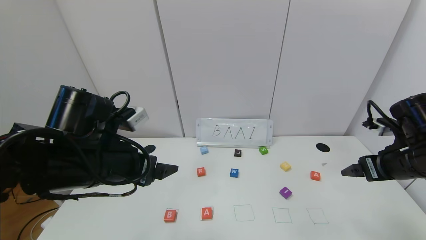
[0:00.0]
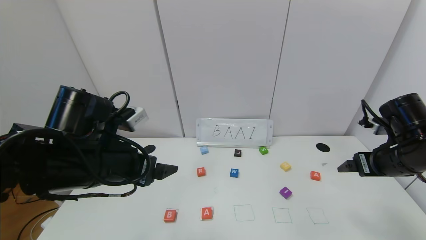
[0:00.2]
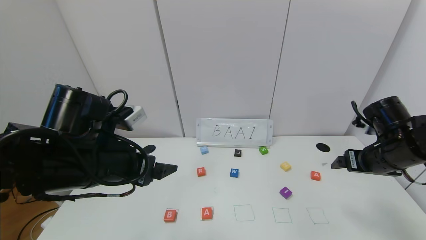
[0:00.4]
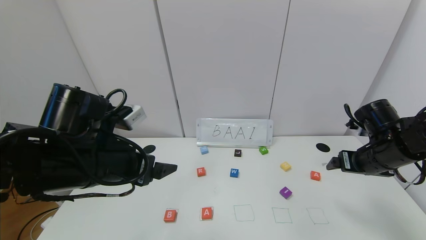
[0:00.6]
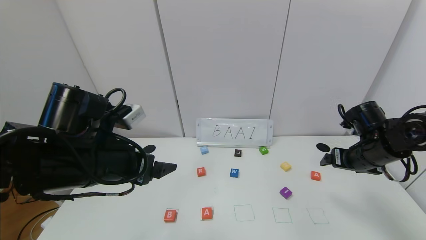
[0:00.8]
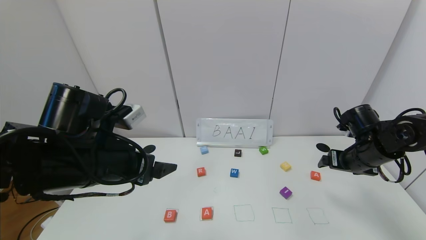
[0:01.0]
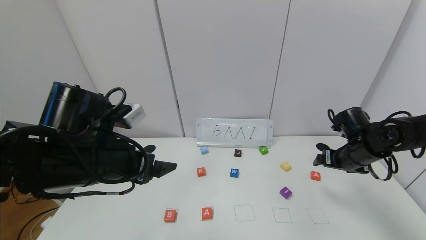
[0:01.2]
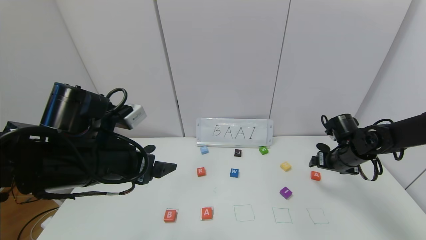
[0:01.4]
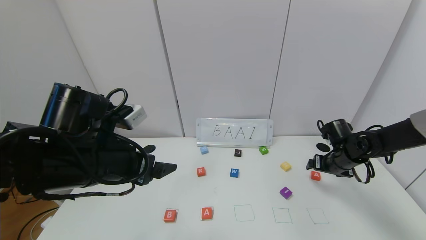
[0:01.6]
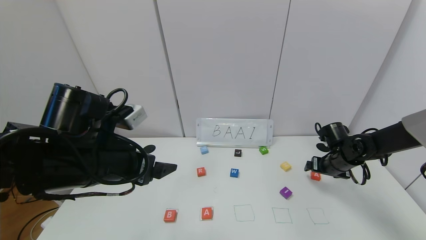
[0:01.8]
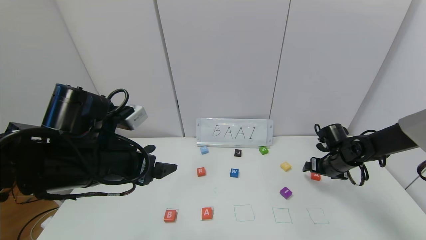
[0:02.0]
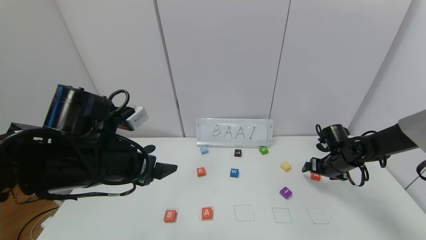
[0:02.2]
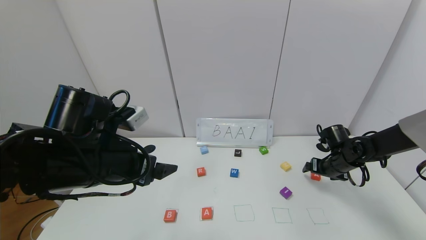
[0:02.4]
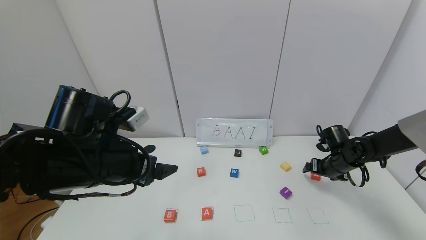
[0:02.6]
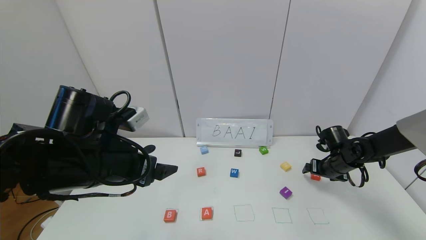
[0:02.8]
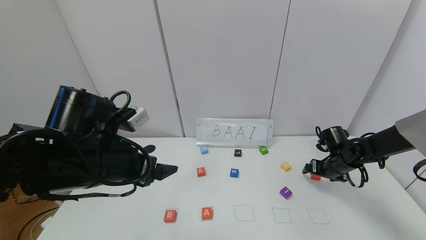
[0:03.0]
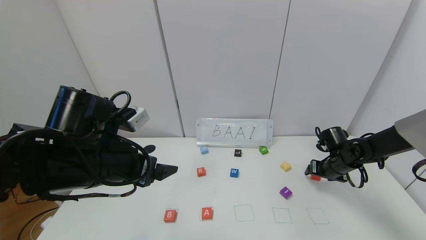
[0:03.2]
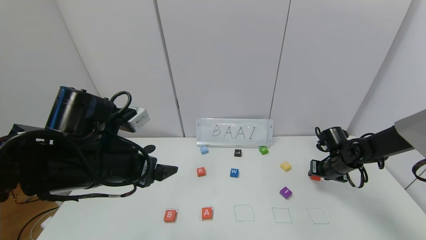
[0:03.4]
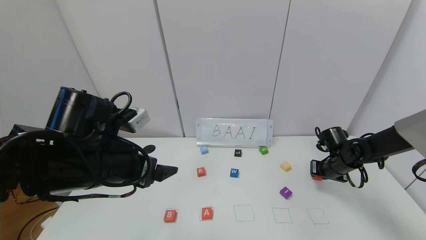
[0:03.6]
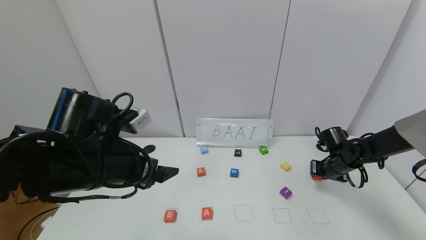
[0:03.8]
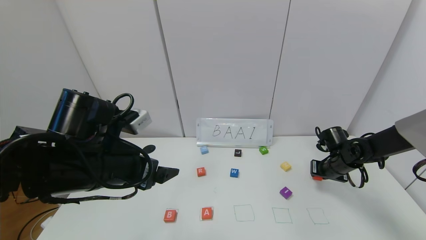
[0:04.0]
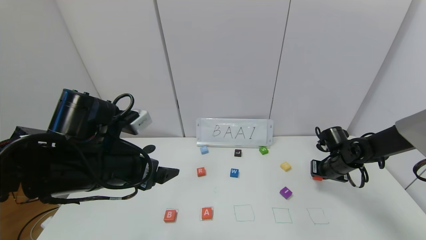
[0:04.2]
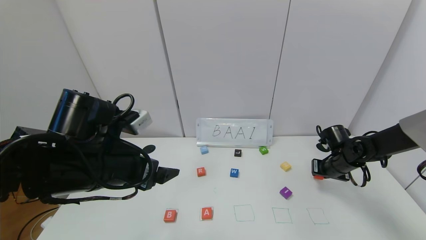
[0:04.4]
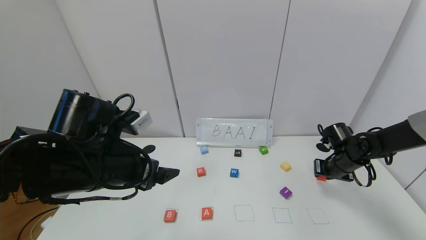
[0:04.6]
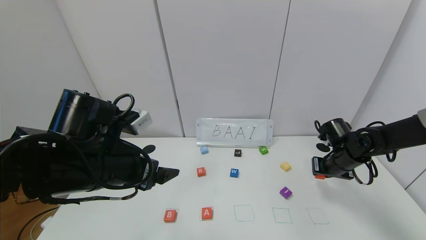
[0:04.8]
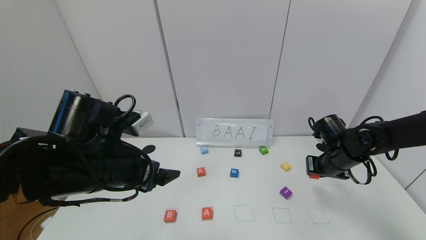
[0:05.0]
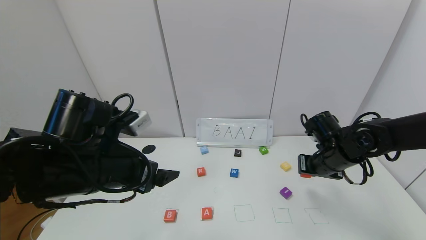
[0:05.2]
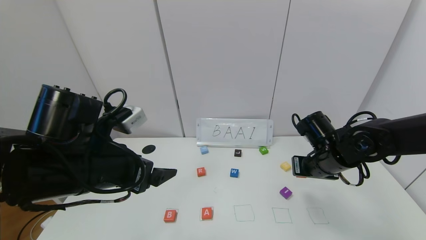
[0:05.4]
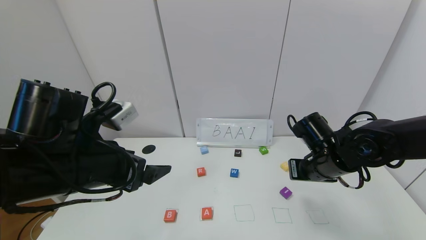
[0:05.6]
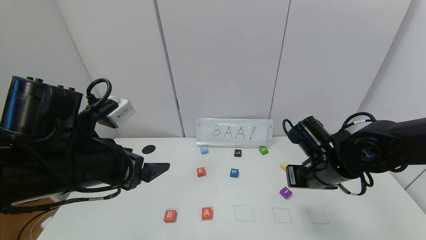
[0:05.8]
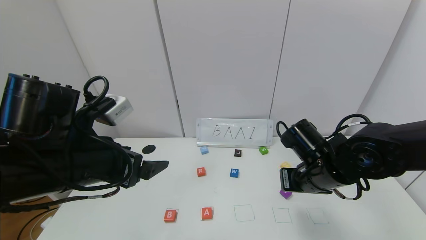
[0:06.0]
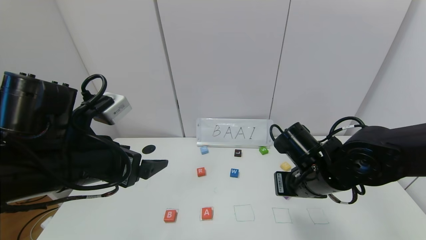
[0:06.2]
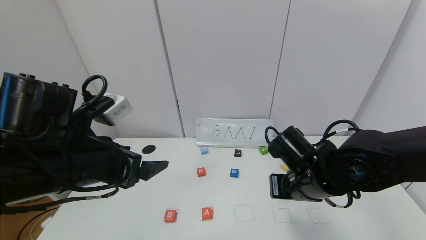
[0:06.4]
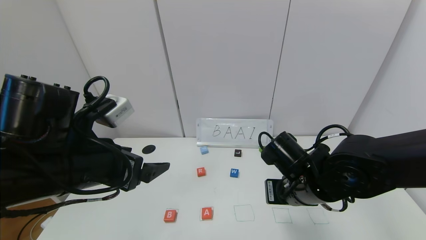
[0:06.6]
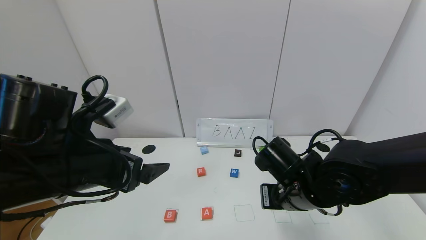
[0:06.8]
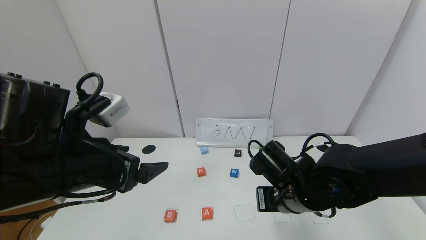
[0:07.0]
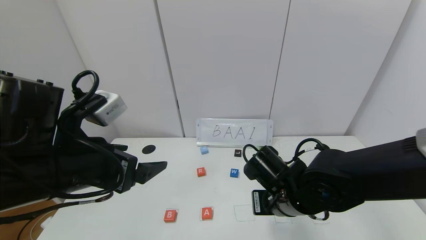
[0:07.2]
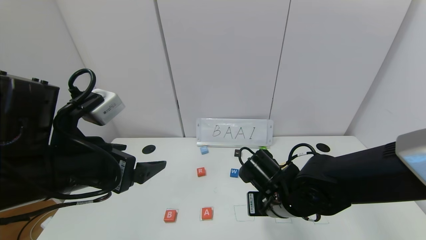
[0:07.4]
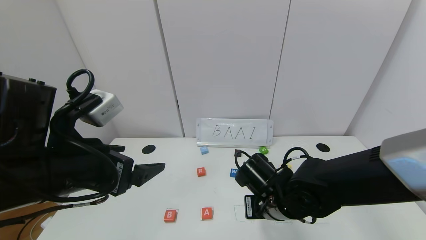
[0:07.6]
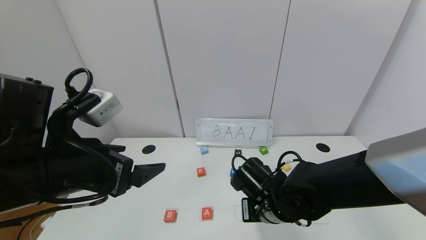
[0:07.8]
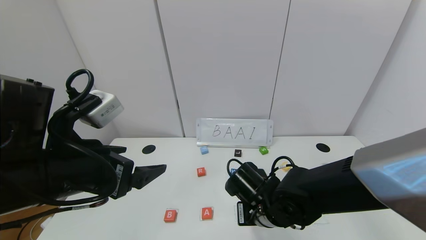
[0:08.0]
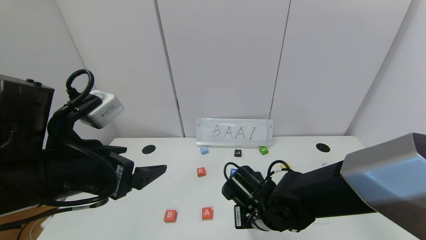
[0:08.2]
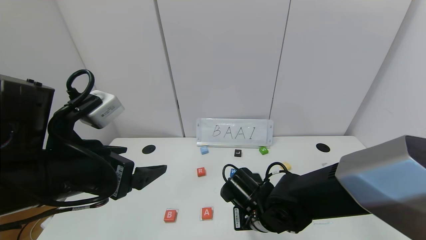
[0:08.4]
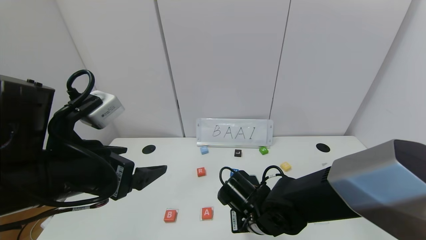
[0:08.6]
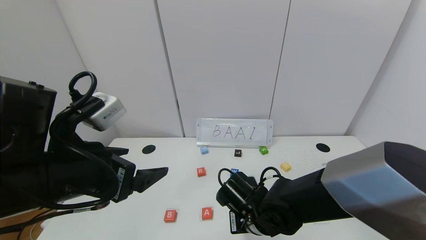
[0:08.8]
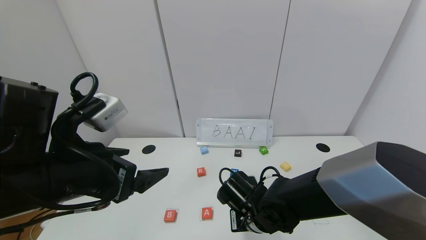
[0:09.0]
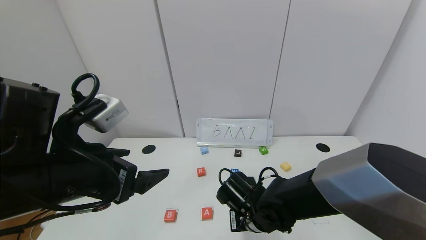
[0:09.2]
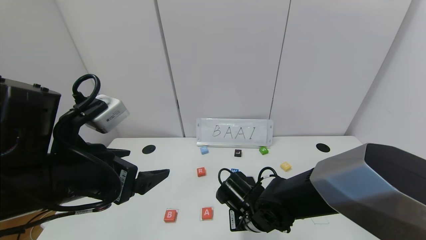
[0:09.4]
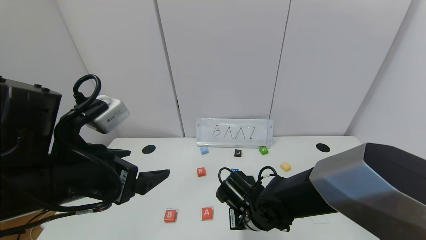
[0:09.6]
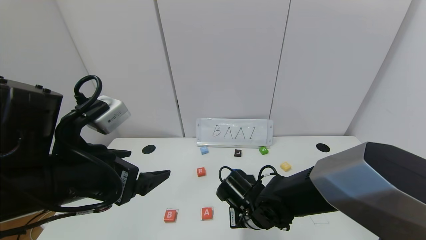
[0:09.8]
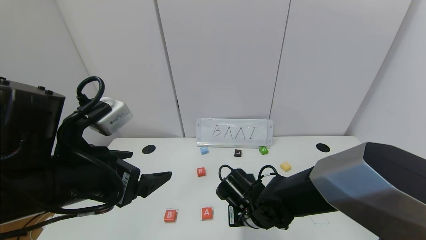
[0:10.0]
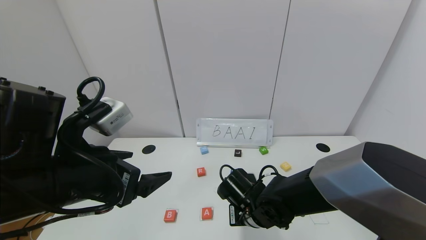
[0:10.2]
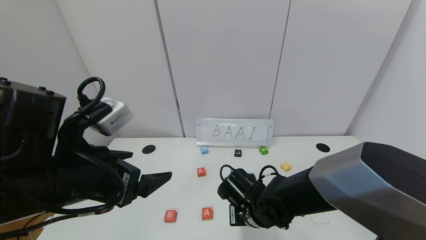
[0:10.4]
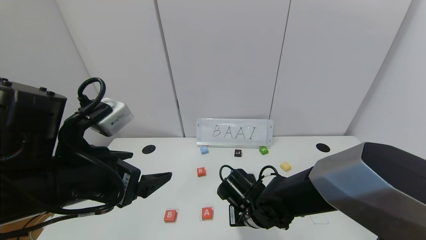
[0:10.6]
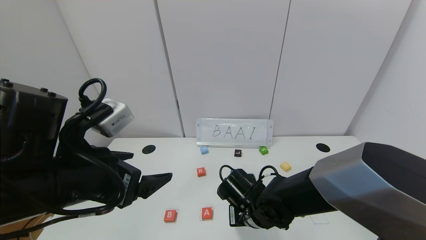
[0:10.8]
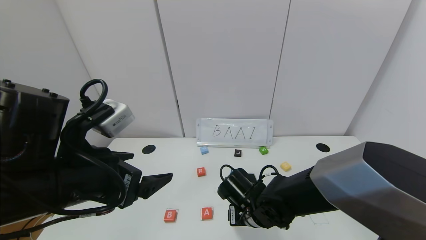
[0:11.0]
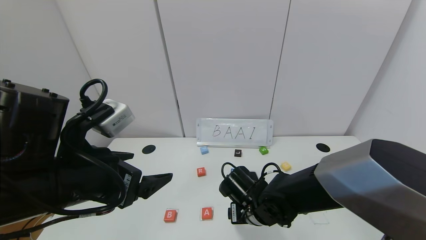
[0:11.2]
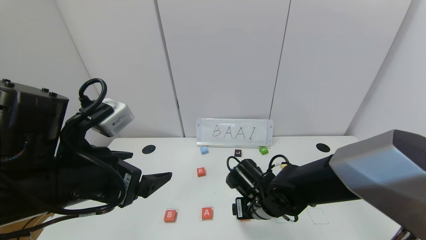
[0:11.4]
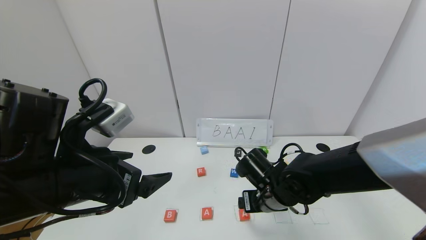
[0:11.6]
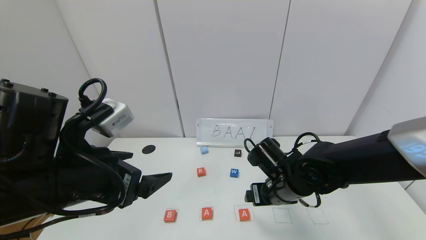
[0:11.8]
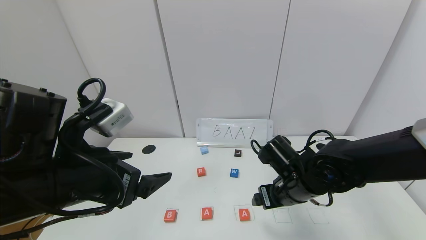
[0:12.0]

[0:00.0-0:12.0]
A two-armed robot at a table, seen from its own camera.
Task of the whole recording: use the gripper to find blocks with the letters b, a, a, and i on the table and arrange them into BAAI, then find r and N and turn the arranged baai into brian.
Step, 0:00.0 to 0:11.4: Place the second block A in the third location.
0:00.0 to 0:01.6: The right gripper shifts about 20 cm forward and downward.
0:01.6 to 0:03.0: The grippers move only a little.
0:03.0 to 0:04.4: The right gripper closes.
0:04.4 to 0:06.0: The right gripper moves to the left, backward and upward, some 20 cm.
0:06.0 to 0:07.6: The right gripper shifts roughly 10 cm to the left and downward.
0:07.6 to 0:09.0: The right gripper shifts about 5 cm downward.
0:09.0 to 0:10.4: There are only small adjustments of the grippers.
0:10.4 to 0:12.0: The right gripper moves upward and to the right, about 10 cm, and opens its fingers.

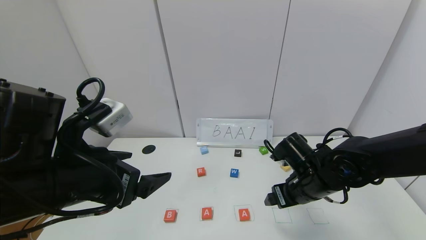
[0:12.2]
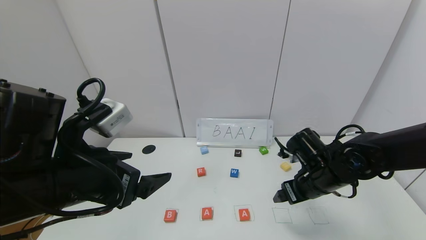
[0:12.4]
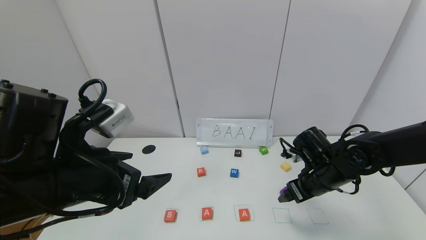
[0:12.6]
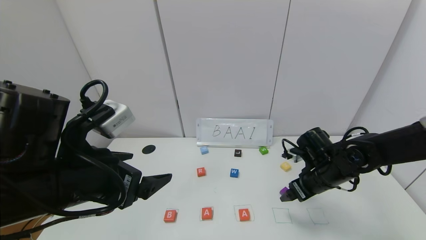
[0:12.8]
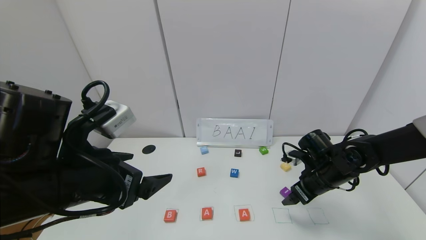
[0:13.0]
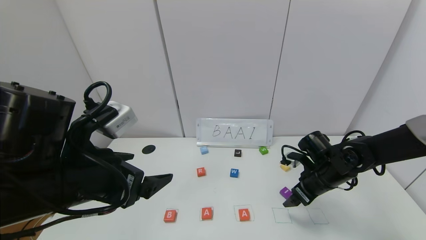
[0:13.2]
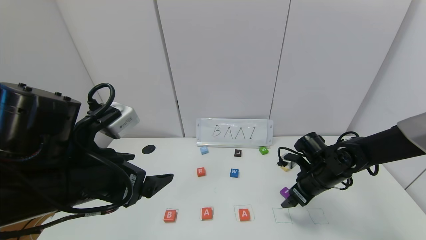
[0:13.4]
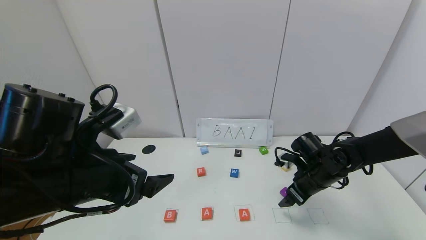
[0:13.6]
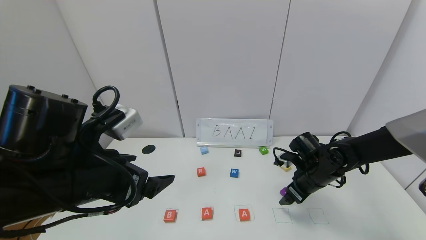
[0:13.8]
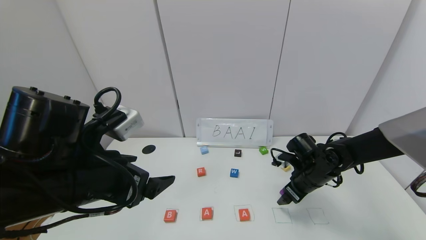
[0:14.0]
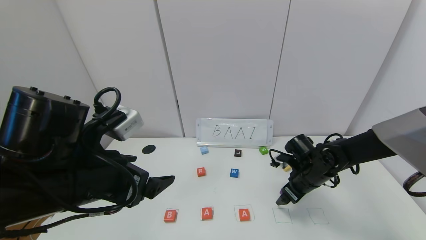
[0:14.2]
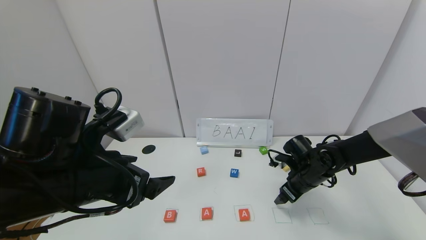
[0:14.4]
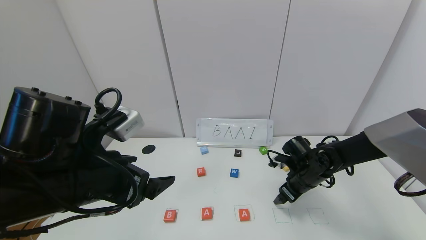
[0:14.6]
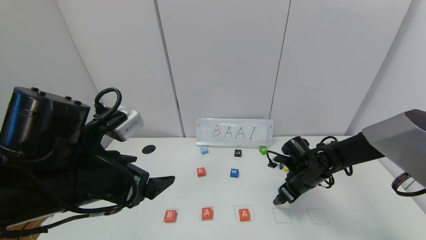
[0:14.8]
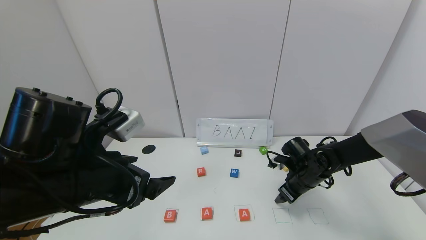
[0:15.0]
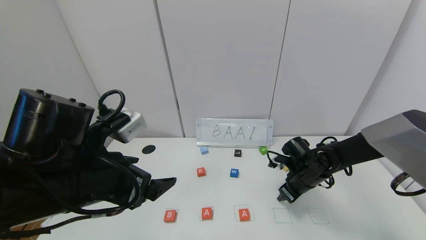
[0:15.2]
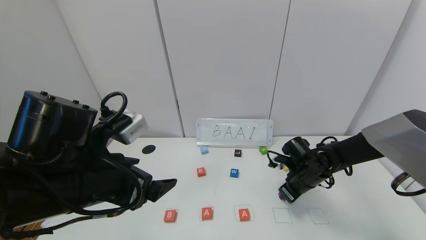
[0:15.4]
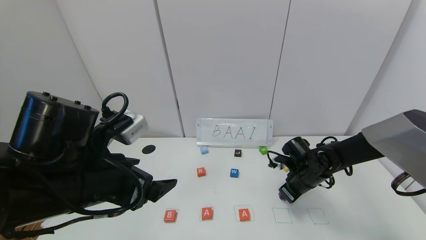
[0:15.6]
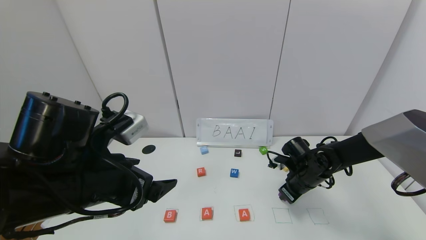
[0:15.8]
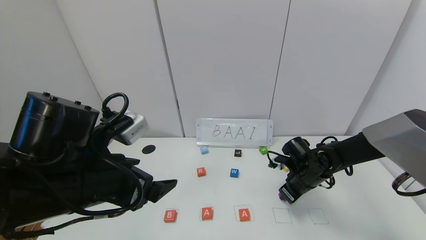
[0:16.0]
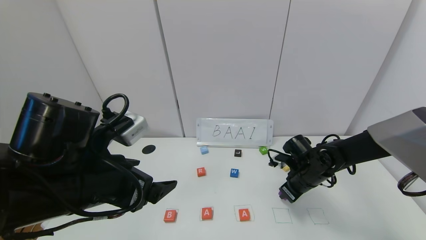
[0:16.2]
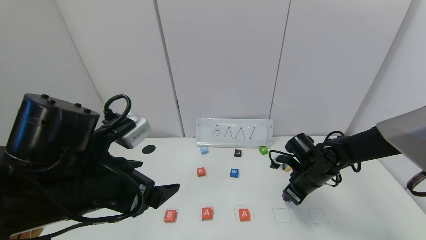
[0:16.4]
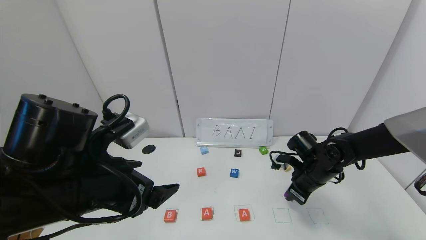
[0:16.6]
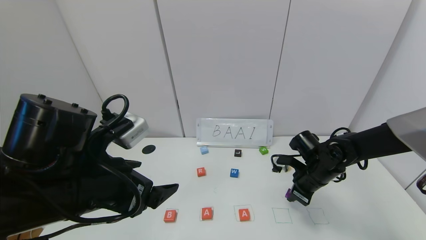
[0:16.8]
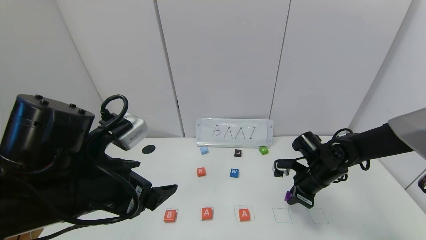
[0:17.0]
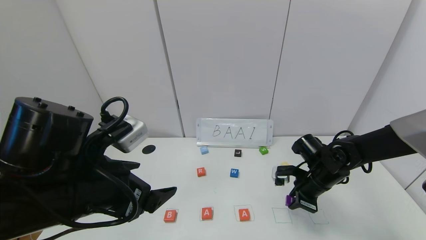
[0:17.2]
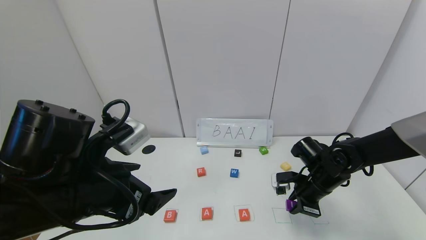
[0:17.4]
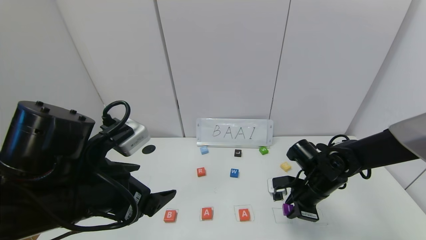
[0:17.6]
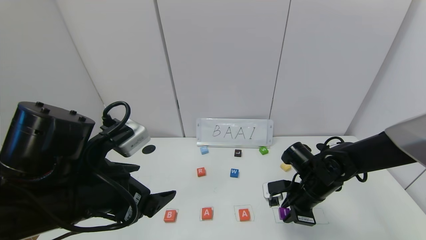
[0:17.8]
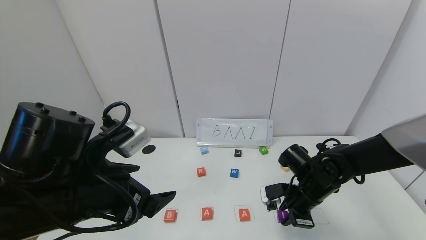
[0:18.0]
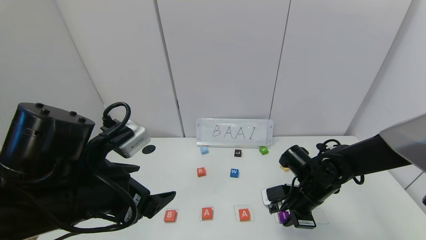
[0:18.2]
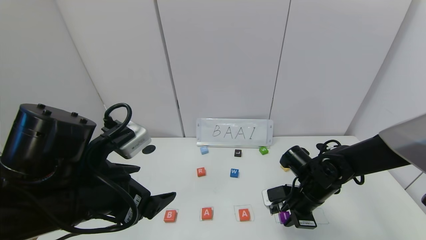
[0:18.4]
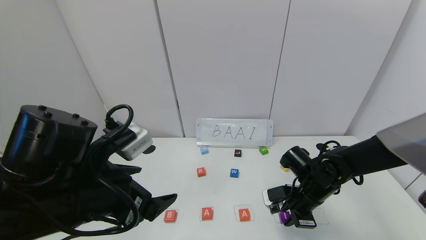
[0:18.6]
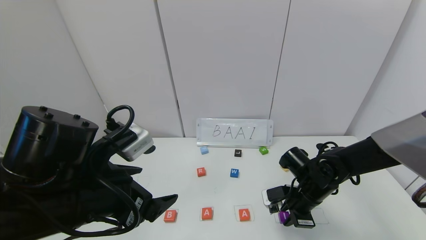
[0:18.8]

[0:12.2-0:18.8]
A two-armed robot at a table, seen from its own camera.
Task of the whole recording: use the gripper to find blocks with the letters b, a, a, and i on the table and arrange them into BAAI, then find r and N and turn the arranged baai into brian.
0:12.2 to 0:13.8: The right gripper goes some 10 cm forward and to the right.
0:13.8 to 0:15.4: The right gripper closes its fingers.
0:17.2 to 0:18.8: The grippers make only small movements.
